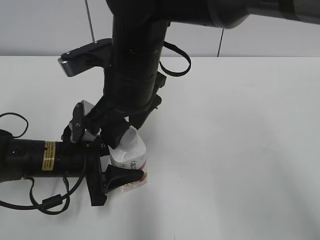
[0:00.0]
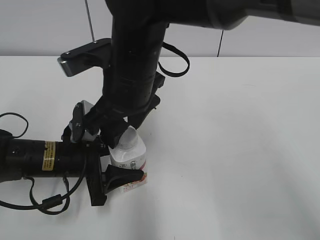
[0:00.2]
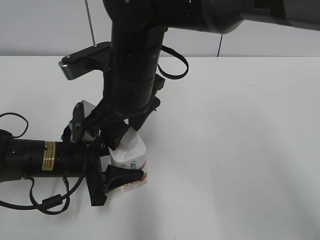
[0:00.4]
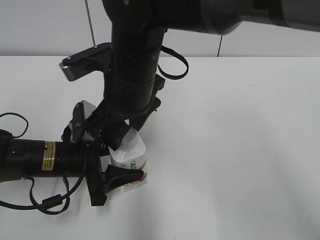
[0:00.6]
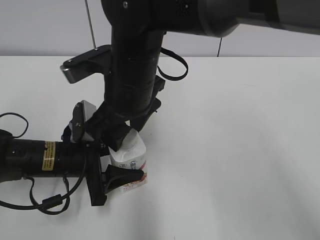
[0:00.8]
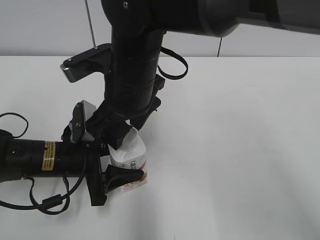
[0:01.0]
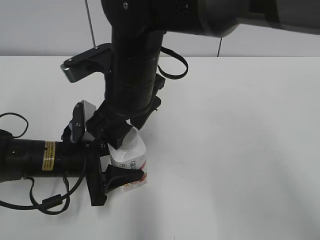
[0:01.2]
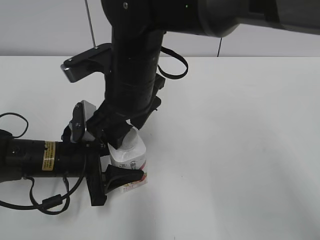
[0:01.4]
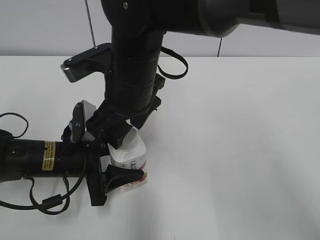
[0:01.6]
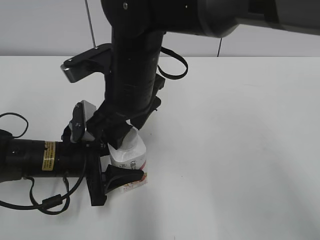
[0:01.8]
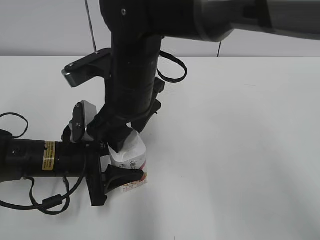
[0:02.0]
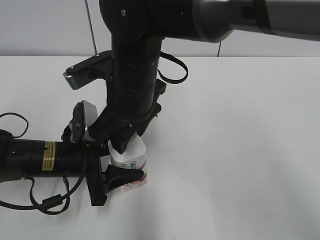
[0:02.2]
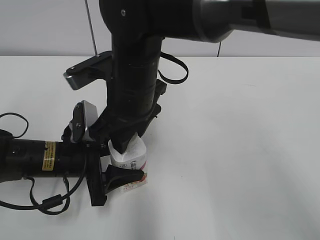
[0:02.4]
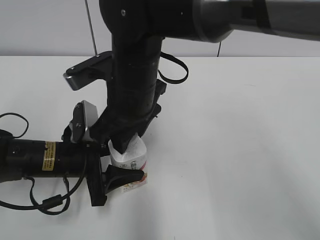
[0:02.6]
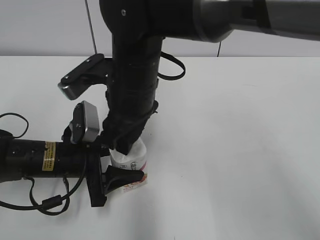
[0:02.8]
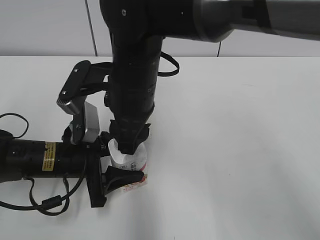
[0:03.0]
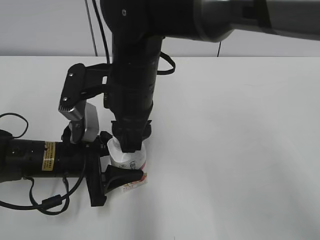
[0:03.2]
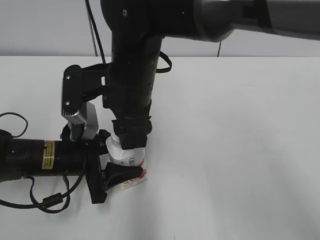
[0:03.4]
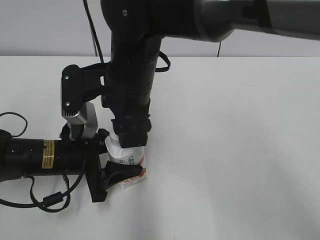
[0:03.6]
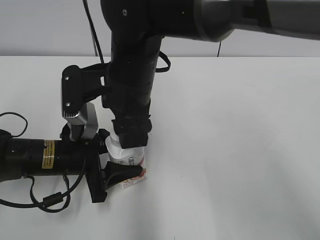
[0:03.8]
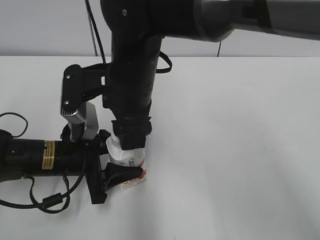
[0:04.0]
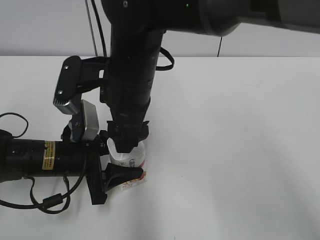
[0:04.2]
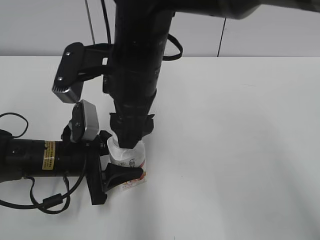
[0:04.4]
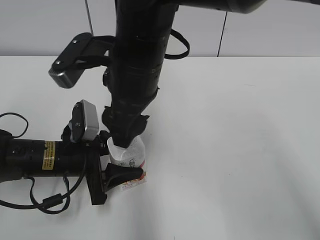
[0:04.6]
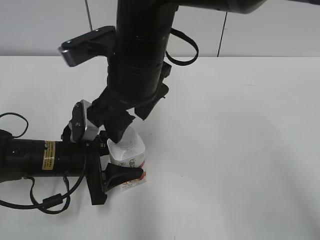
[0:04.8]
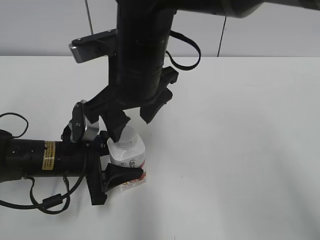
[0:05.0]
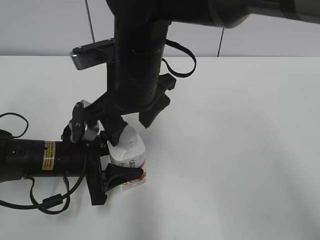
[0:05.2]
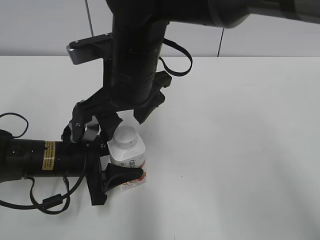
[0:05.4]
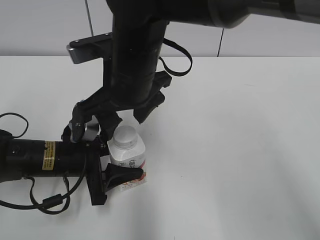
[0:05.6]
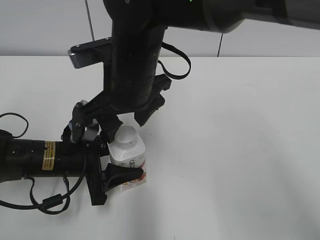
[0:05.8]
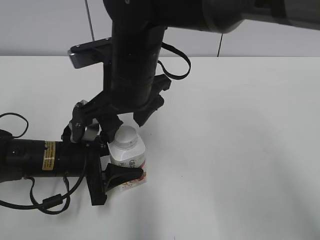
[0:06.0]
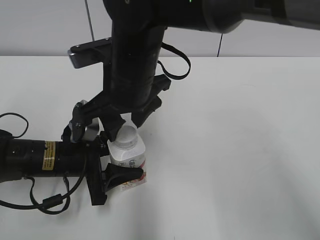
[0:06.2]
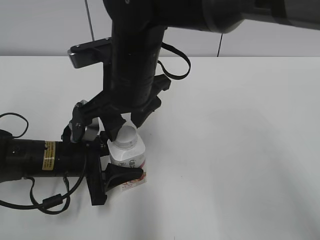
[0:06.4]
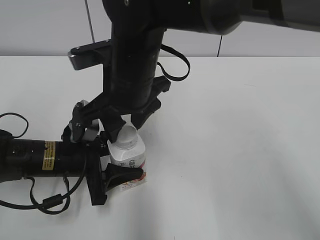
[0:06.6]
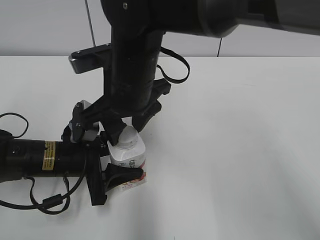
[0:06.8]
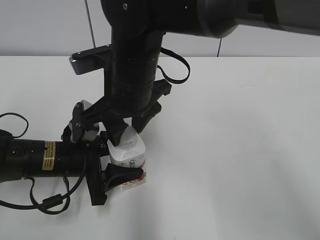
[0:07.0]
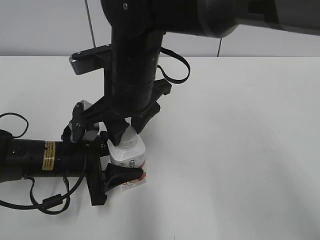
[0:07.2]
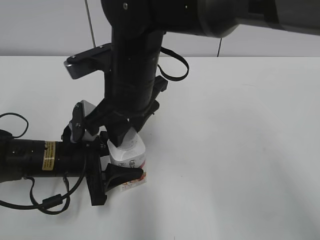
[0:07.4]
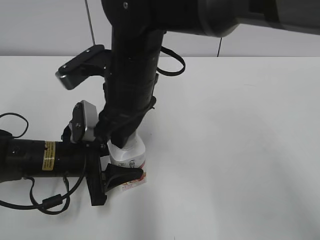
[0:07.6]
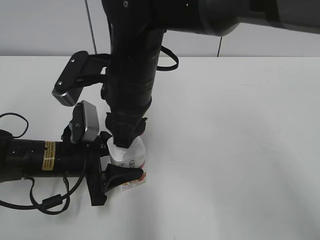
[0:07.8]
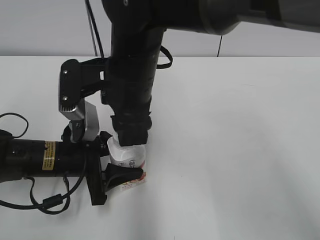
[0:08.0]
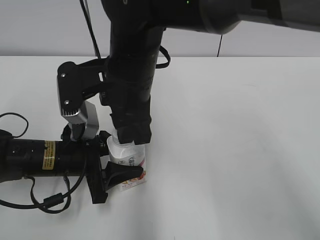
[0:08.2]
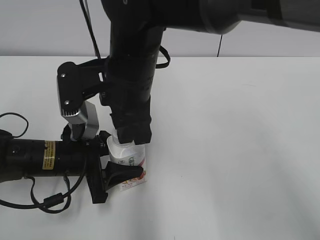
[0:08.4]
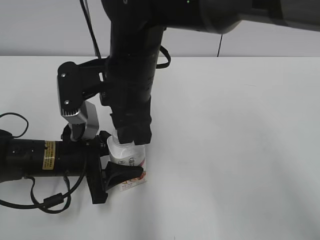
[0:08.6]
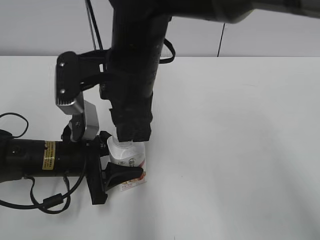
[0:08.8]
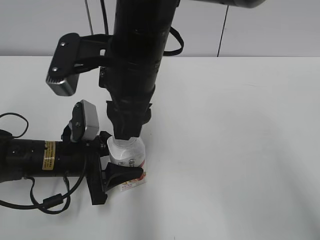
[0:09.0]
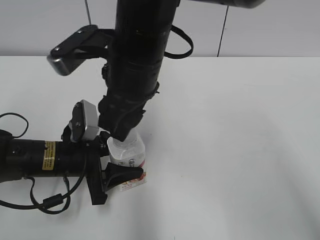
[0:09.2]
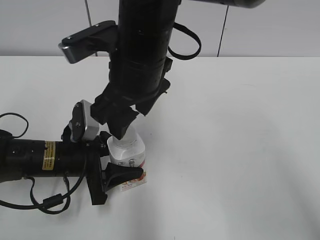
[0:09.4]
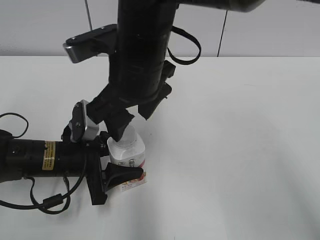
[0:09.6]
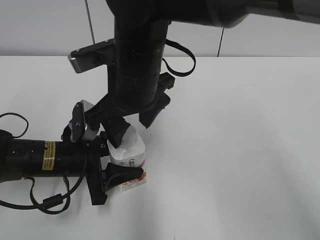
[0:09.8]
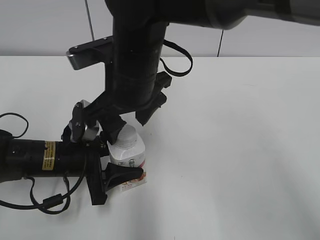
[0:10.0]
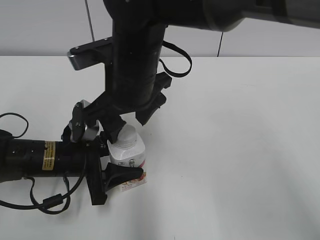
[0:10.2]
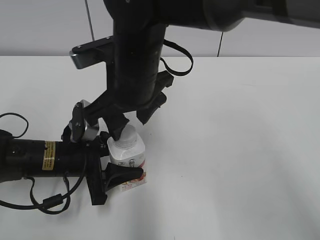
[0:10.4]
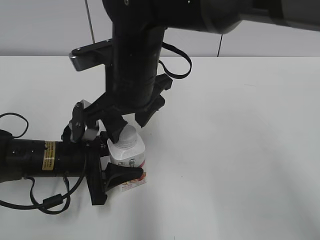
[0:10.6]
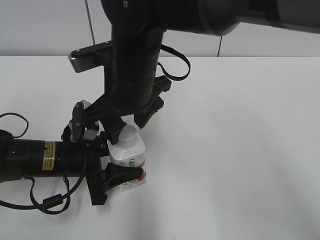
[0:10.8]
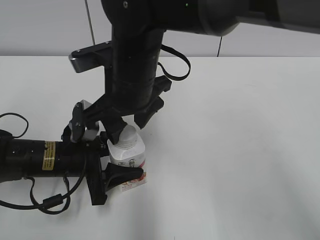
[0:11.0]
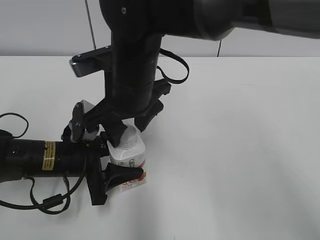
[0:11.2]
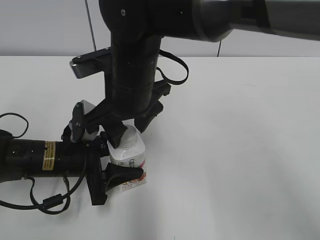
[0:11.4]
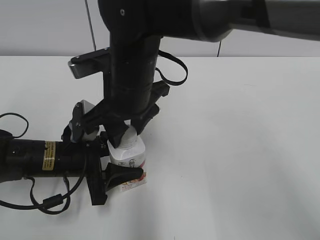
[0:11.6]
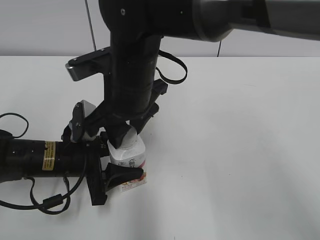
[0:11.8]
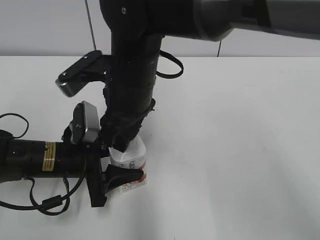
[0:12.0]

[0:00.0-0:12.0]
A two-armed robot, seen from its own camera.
0:00.0 to 0:01.6: Neither gripper changes place.
0:03.0 to 0:04.4: The right gripper opens its fingers.
0:06.0 to 0:07.6: The right gripper closes its fingers.
0:09.0 to 0:10.4: The right gripper opens.
0:10.4 to 0:12.0: The right gripper closes its fingers.

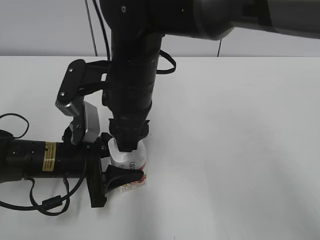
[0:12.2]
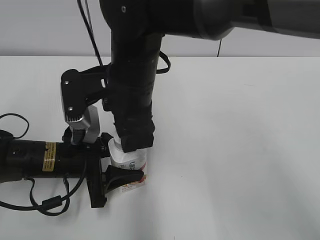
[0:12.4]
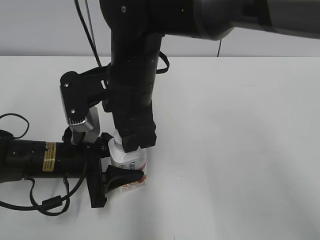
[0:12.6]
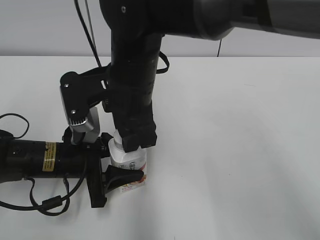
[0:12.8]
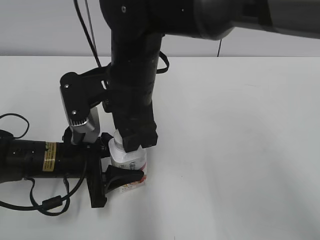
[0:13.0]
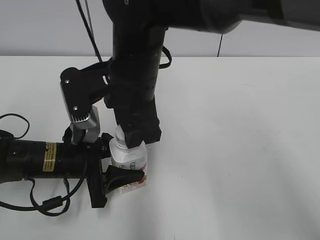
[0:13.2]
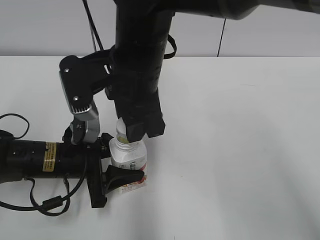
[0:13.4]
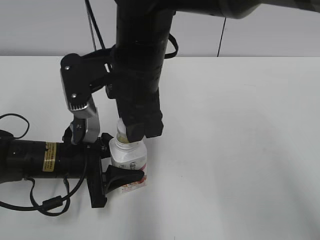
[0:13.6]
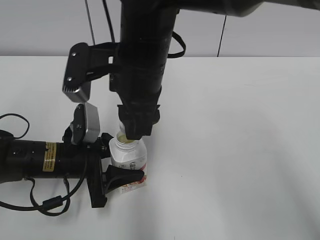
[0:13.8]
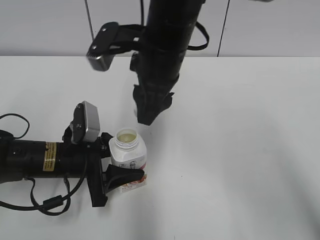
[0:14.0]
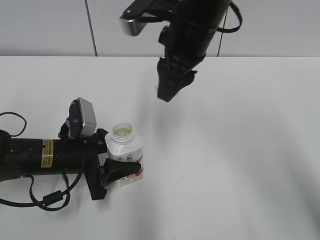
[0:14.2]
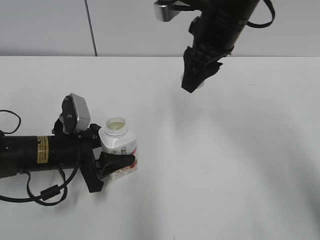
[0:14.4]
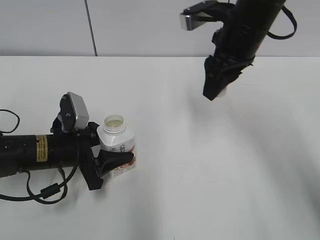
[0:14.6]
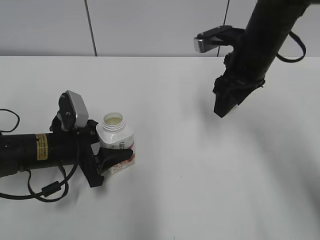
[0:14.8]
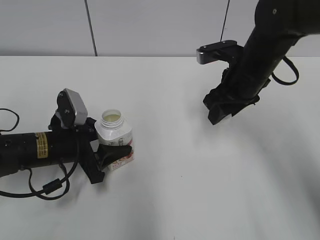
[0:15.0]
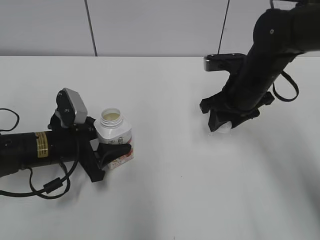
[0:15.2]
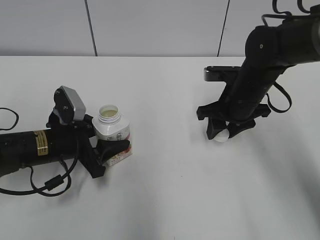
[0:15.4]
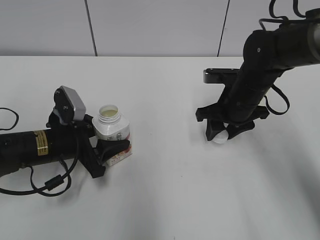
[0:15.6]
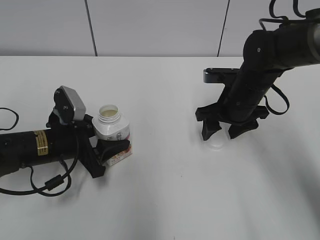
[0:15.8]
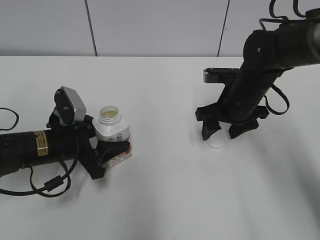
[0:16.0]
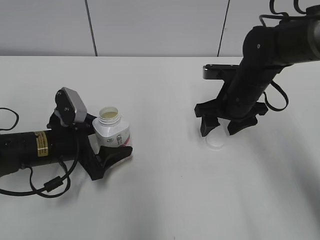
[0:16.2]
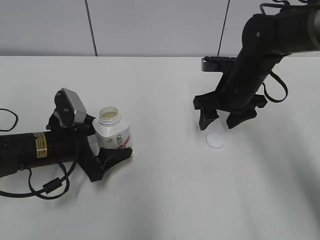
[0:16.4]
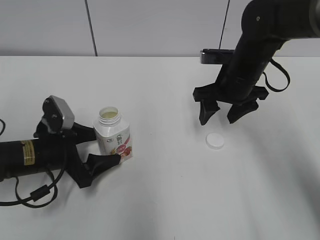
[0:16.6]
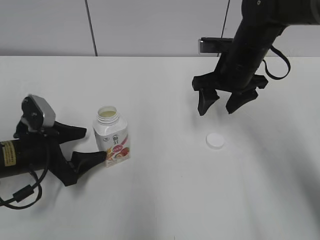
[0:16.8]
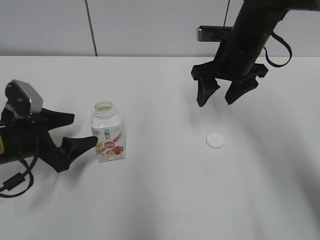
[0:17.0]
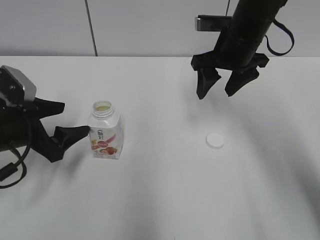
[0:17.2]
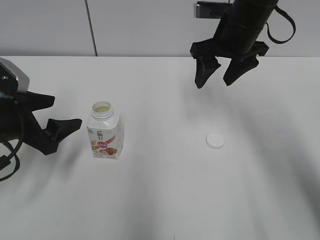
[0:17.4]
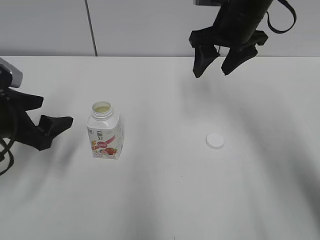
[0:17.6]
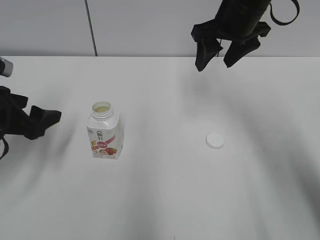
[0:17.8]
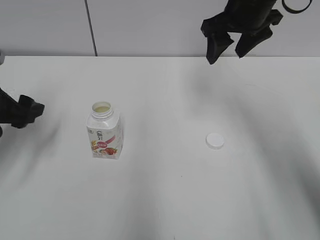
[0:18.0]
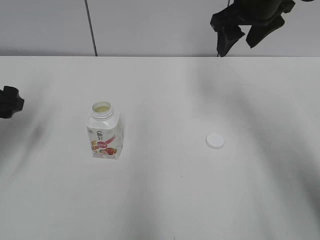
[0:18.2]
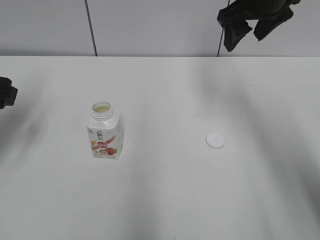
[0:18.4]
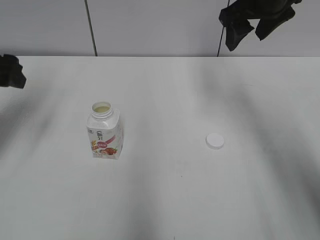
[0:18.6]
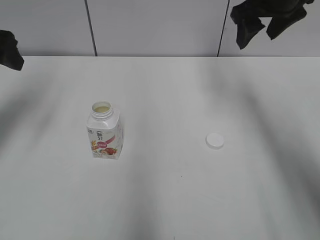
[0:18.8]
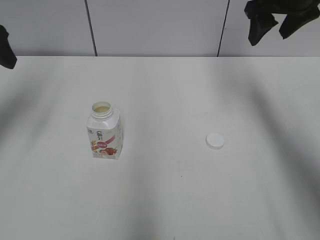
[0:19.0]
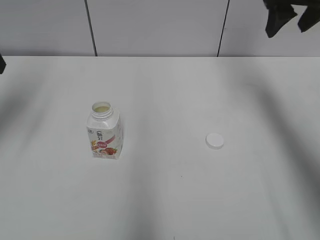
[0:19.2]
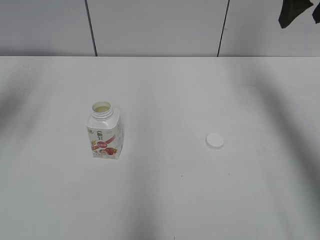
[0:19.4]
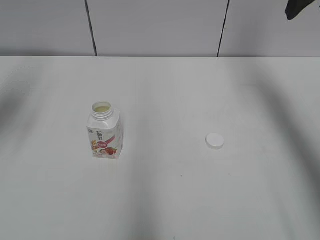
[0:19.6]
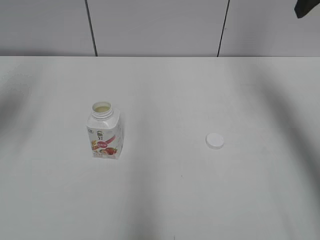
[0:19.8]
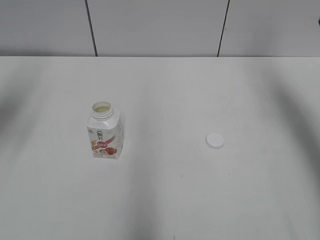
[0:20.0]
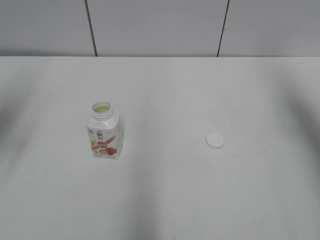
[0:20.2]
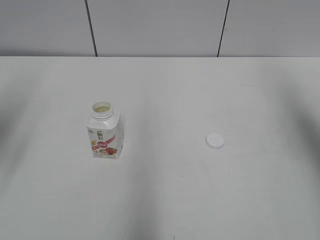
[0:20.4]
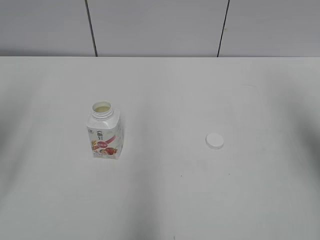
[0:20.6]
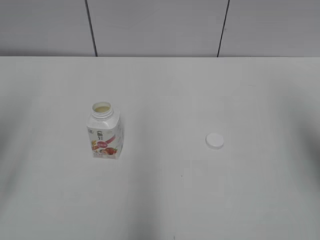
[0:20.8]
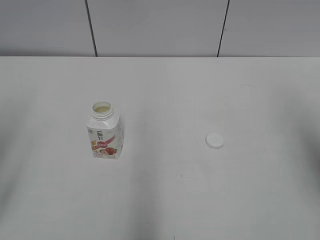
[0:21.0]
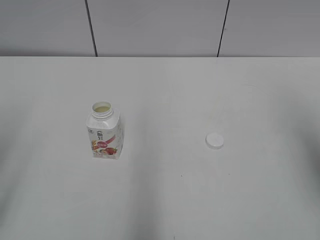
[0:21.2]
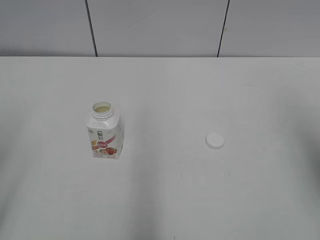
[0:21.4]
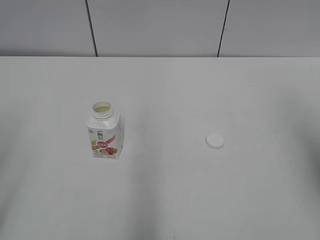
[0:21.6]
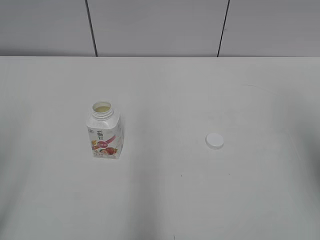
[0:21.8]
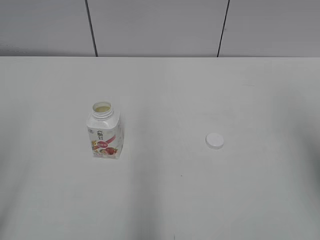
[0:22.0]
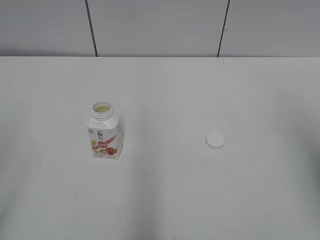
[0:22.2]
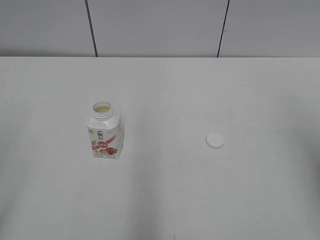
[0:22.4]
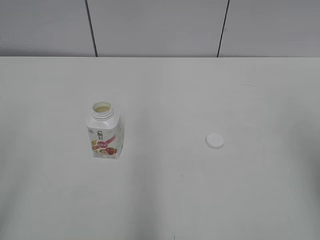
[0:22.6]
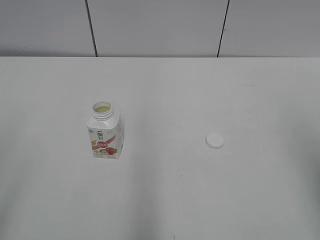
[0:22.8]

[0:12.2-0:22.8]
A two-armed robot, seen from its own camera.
0:13.8 to 0:15.2: The right gripper heads to the right and downward, covering some 20 cm.
0:15.2 to 0:16.8: The right gripper opens up. Meanwhile the left gripper opens its fingers.
0:16.8 to 0:18.2: The left gripper moves upward and to the left, approximately 15 cm, while the right gripper travels upward by approximately 10 cm.
0:18.2 to 0:19.8: The left gripper travels upward by some 10 cm. Meanwhile the right gripper is displaced to the right and upward by some 15 cm.
0:19.8 to 0:21.2: The grippers both shift backward by some 20 cm.
